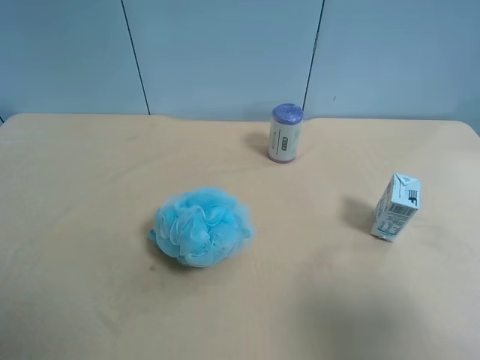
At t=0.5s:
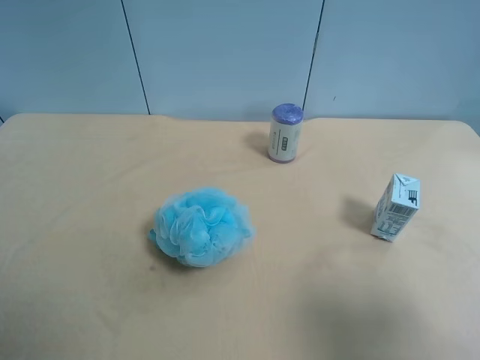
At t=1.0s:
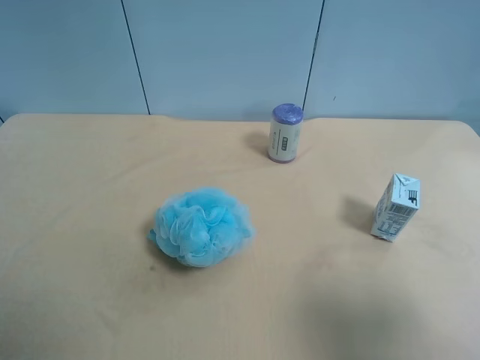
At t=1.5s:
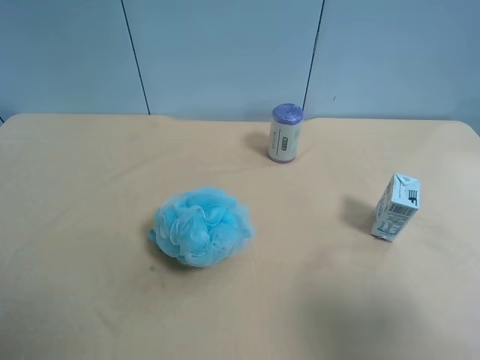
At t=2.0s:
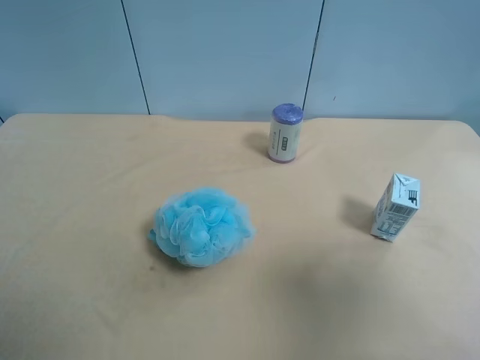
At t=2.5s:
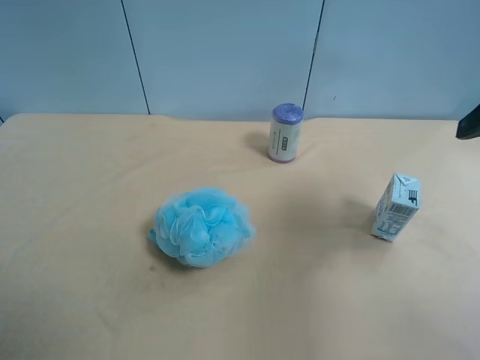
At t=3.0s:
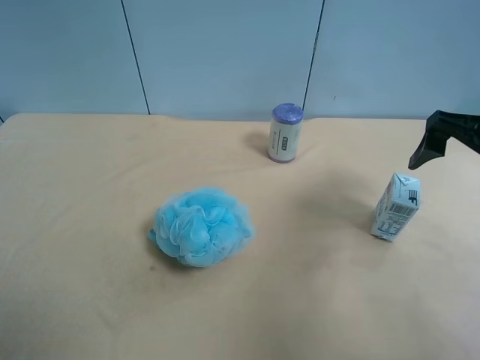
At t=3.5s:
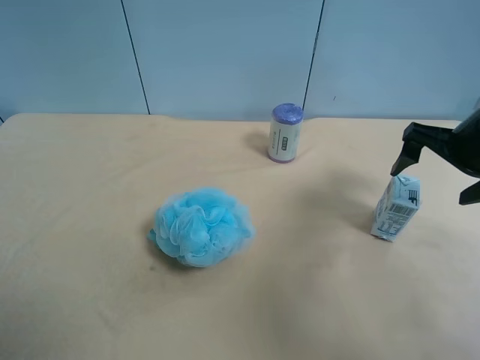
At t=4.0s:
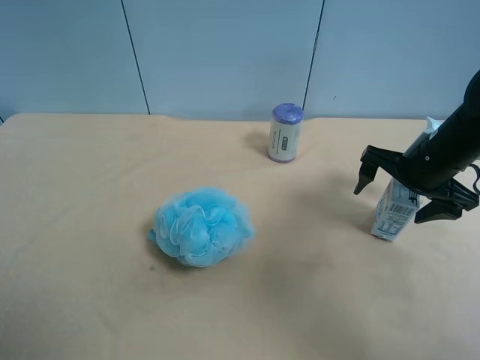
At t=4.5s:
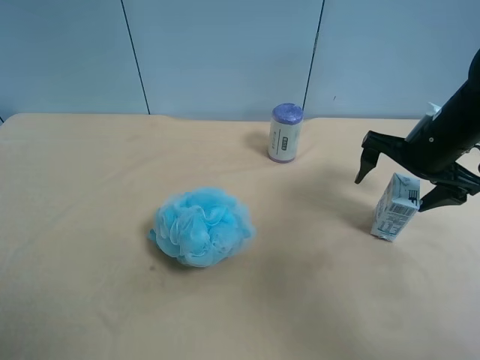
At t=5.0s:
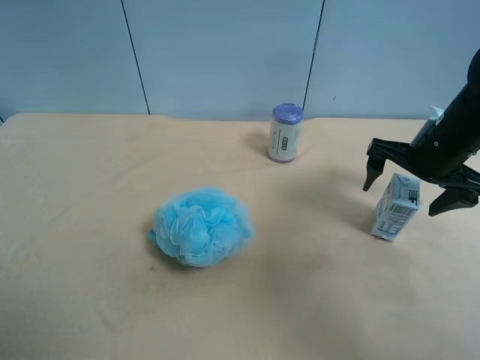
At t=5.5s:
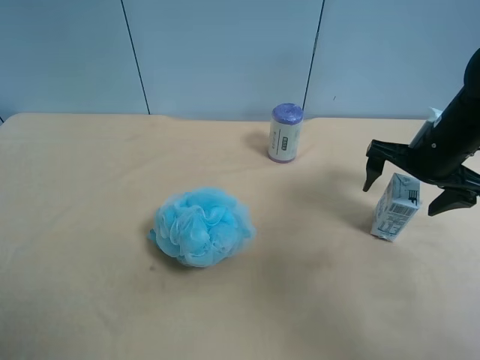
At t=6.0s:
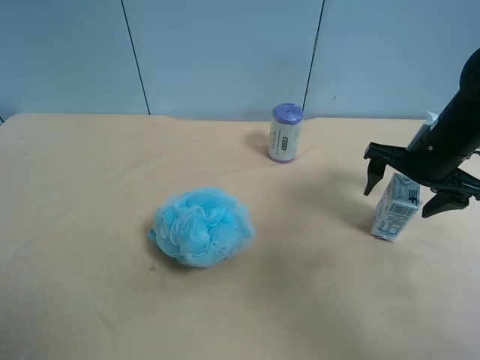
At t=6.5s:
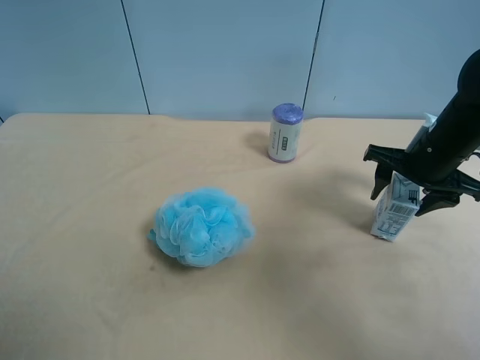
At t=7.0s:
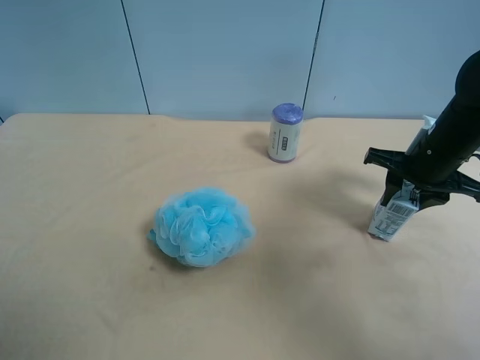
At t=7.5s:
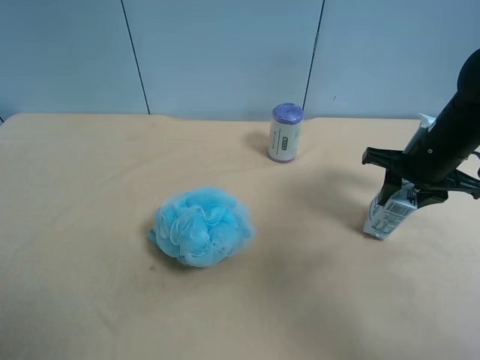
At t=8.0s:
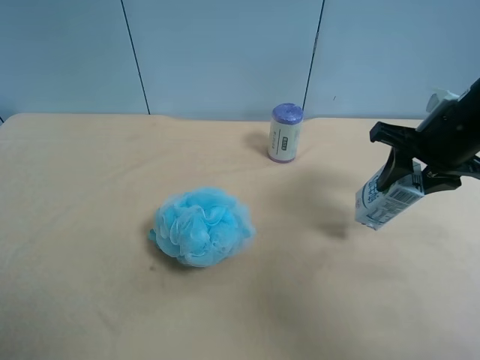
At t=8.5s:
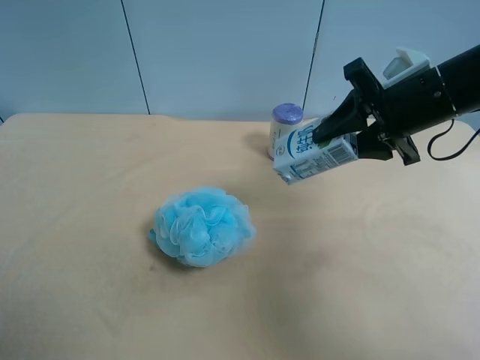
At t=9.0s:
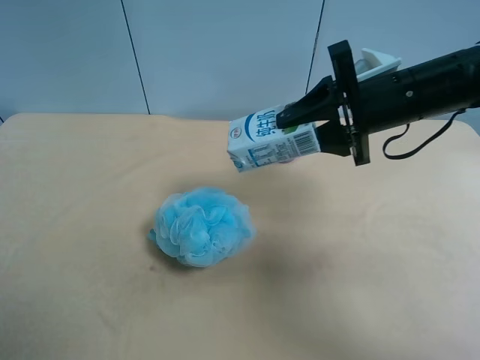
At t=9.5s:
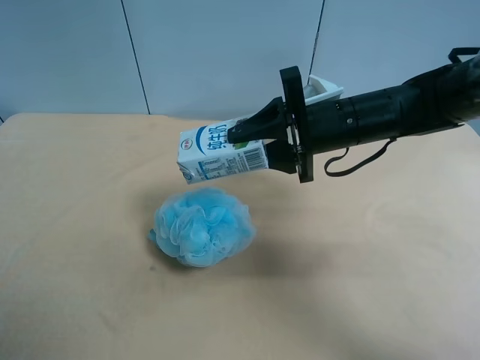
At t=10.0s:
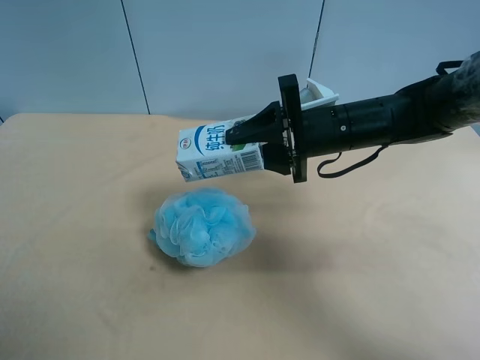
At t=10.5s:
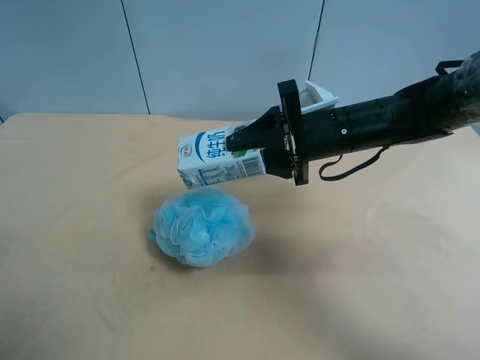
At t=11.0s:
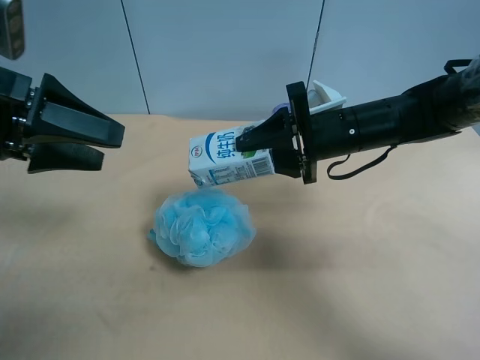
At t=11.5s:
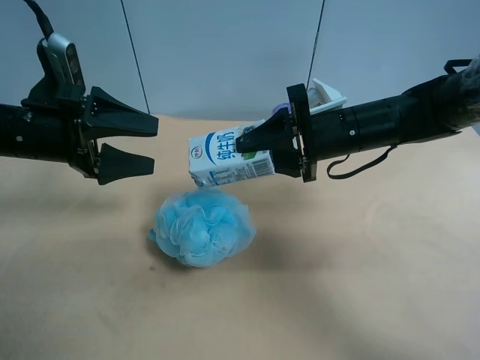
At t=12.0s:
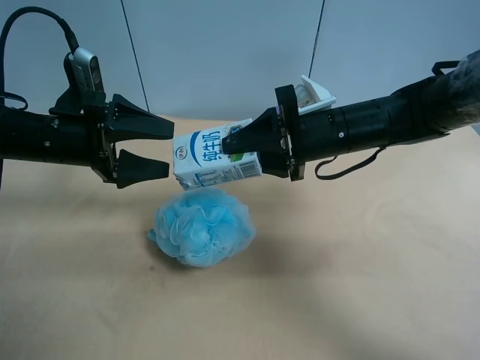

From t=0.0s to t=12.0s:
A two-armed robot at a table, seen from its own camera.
Task of the whole recording: use the right gripper to pick up the item and transfer it from the right gripper to the left gripper.
From t=0.0s to t=2.0s: The right gripper goes some 5 cm upward.
From t=2.0s to t=4.0s: The right gripper goes approximately 30 cm forward and downward.
From t=4.0s to t=6.0s: The grippers stay close to where they were, moving slightly.
From t=6.0s to t=8.0s: The right gripper goes some 5 cm upward, and closes up.
From t=8.0s to t=10.0s: The right gripper is displaced to the left by roughly 10 cm.
From t=10.0s to t=12.0s: The left gripper travels forward by approximately 30 cm.

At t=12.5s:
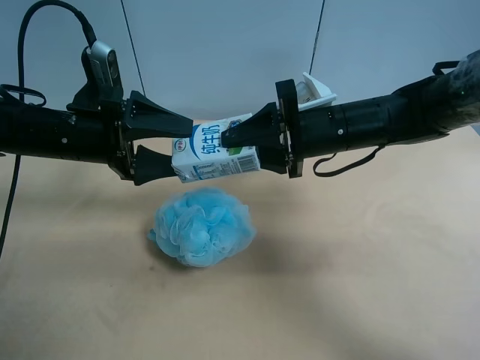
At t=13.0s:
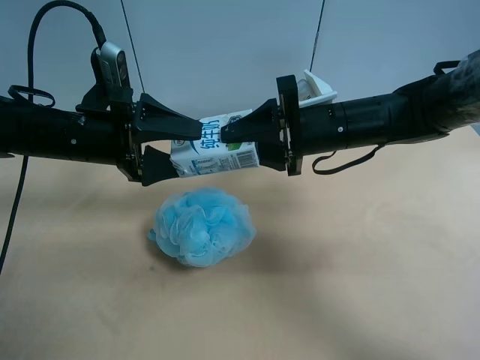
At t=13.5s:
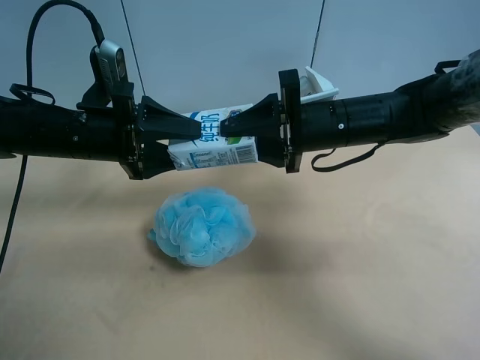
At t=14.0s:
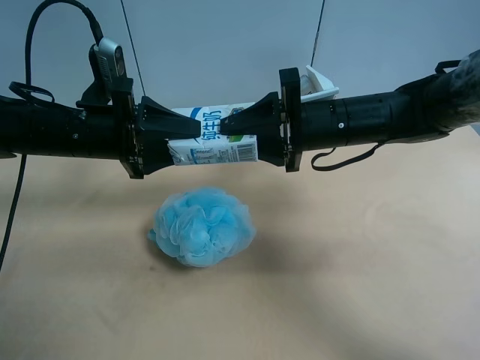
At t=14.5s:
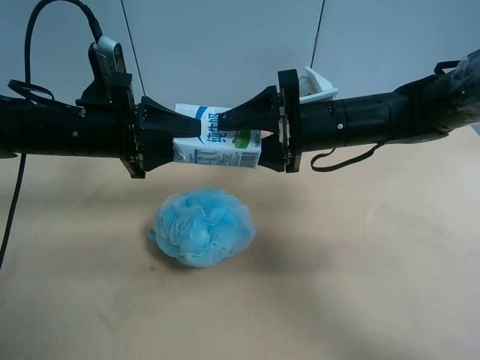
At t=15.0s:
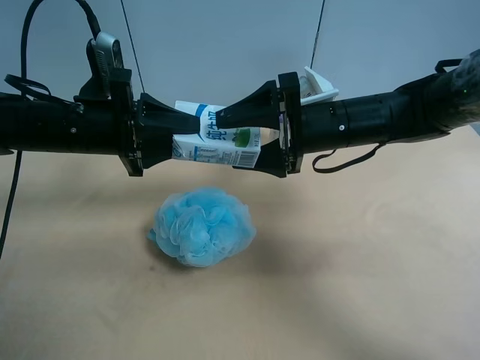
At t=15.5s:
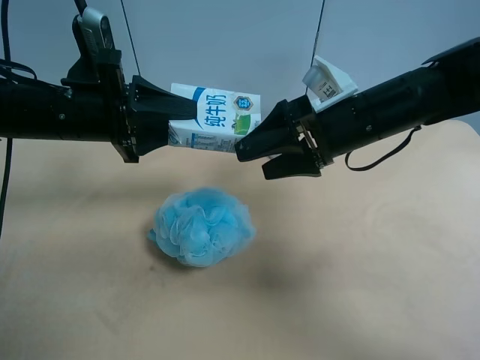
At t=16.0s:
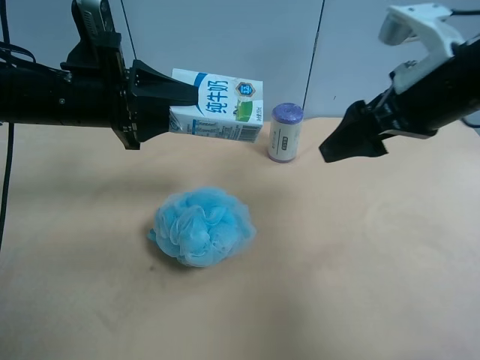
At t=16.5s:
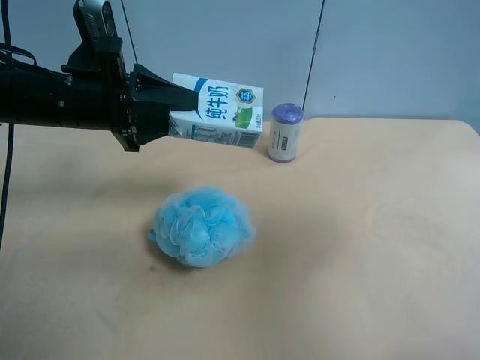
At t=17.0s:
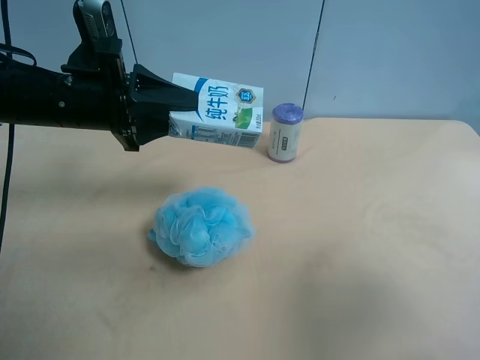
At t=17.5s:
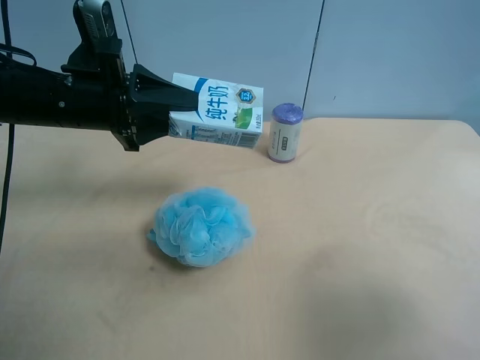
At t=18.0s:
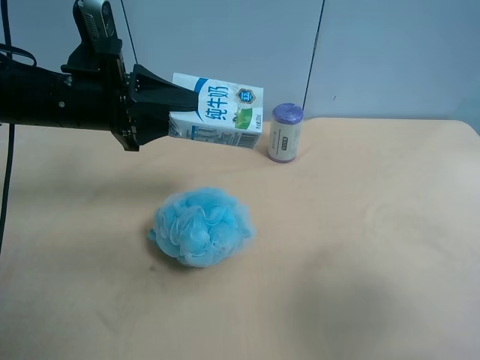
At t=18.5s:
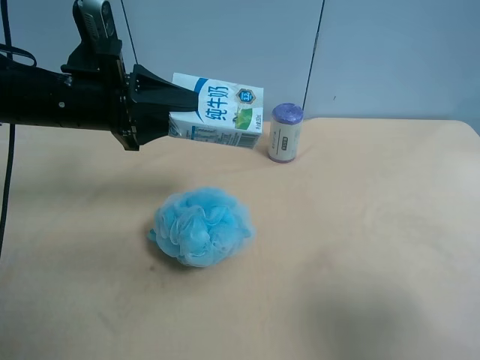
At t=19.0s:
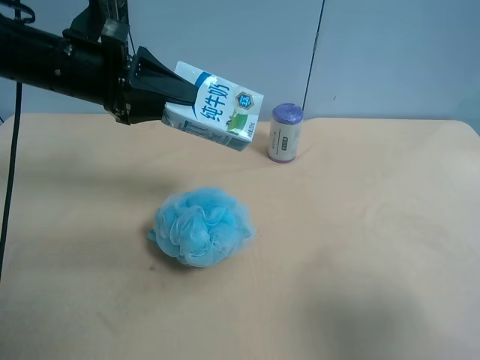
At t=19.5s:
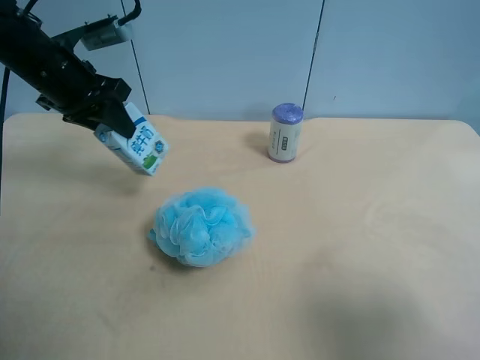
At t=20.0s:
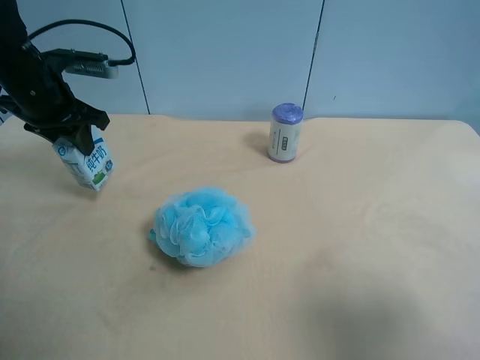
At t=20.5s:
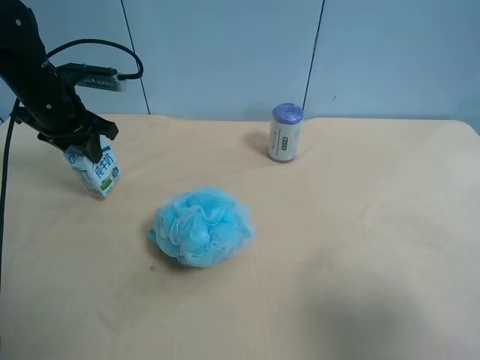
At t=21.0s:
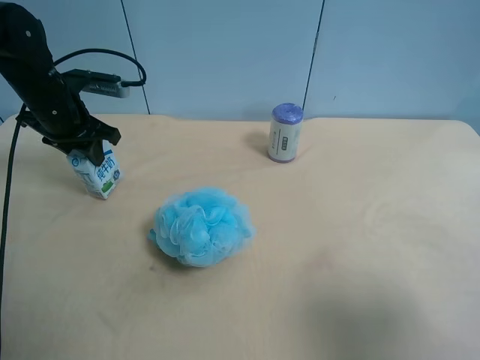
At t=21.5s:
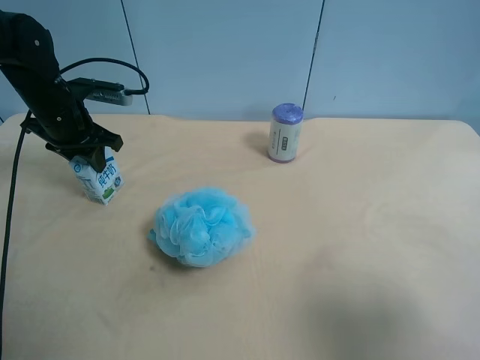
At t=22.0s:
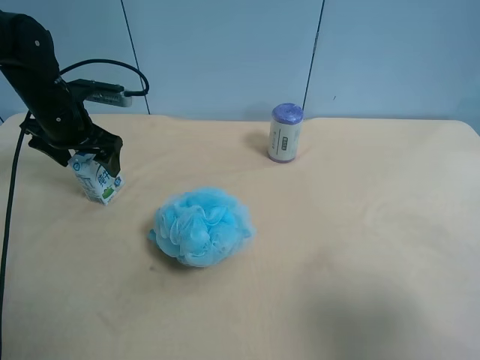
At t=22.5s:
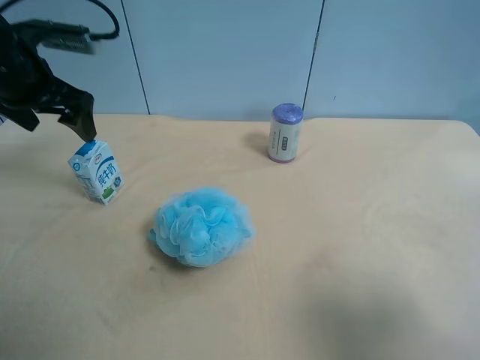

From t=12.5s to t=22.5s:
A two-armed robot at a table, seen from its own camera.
Task of the whole recording: use the right gripper to pick up the item and transfer it from the right gripper to the left gripper.
From t=12.5s to t=14.5s: The left gripper closes.
From t=14.5s to t=16.5s: The right gripper moves backward, upward and to the right, roughly 30 cm, and opens up.
From t=16.5s to t=18.5s: The right gripper is displaced backward and downward by approximately 15 cm.
From t=18.5s to t=20.5s: The left gripper travels forward and to the left by approximately 10 cm.
From t=20.5s to t=22.5s: The left gripper moves upward, about 10 cm, and opens up.
